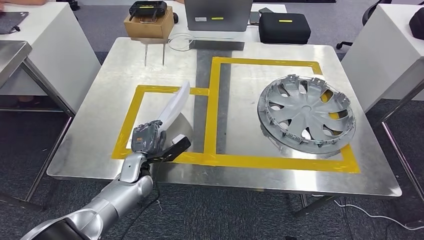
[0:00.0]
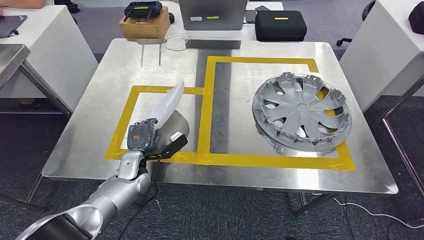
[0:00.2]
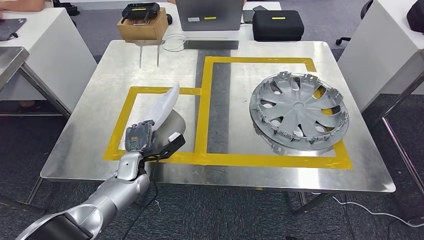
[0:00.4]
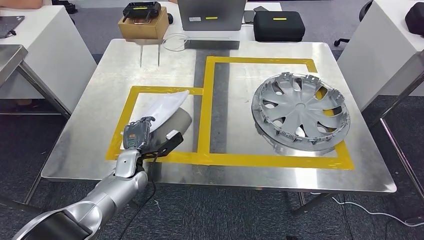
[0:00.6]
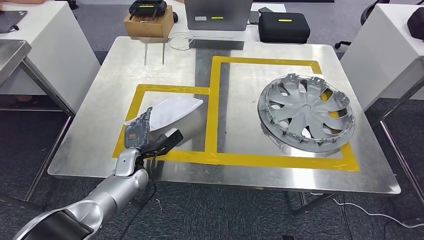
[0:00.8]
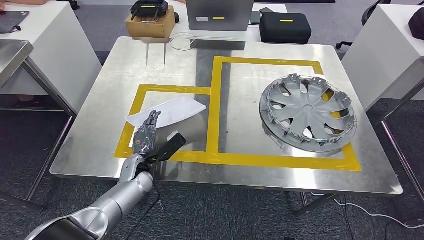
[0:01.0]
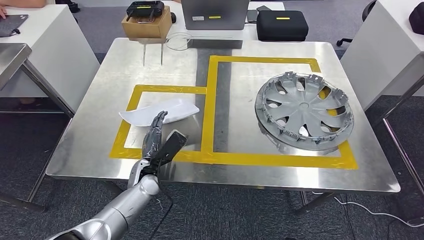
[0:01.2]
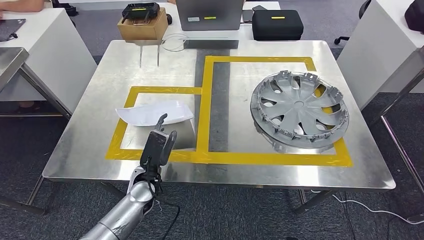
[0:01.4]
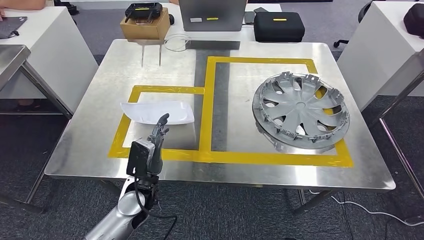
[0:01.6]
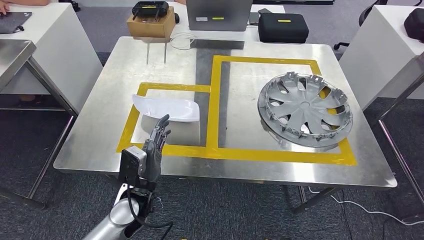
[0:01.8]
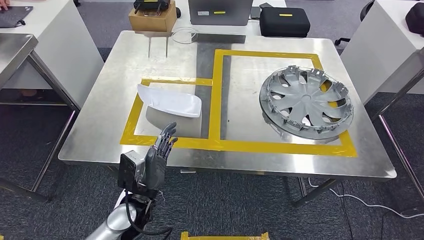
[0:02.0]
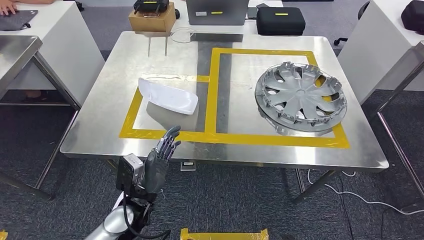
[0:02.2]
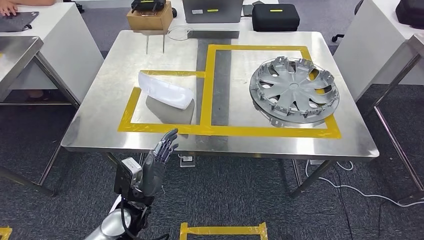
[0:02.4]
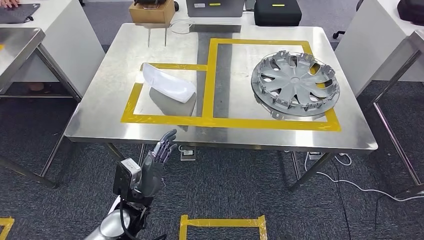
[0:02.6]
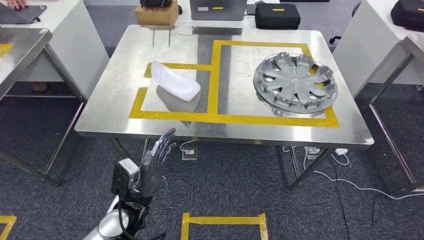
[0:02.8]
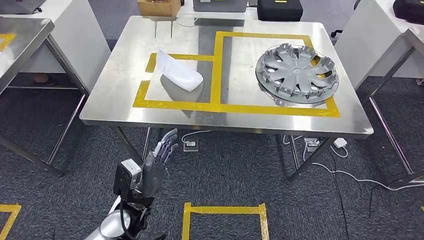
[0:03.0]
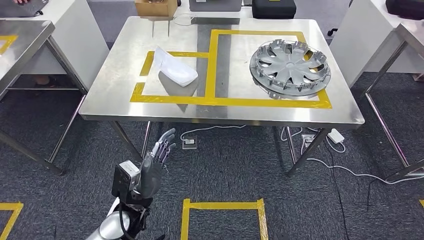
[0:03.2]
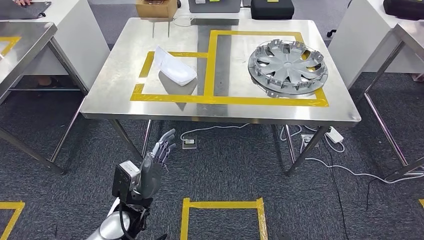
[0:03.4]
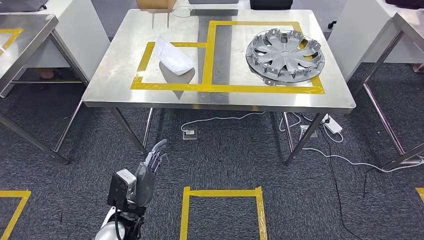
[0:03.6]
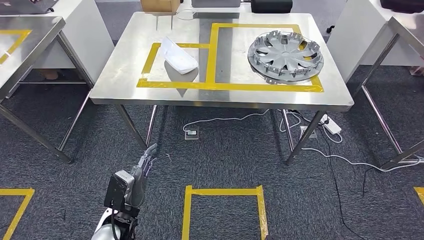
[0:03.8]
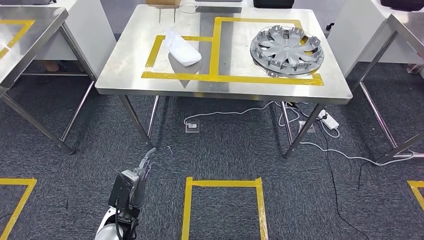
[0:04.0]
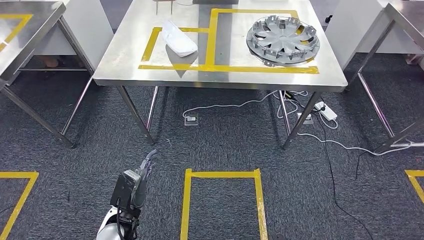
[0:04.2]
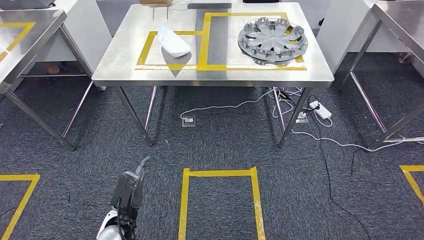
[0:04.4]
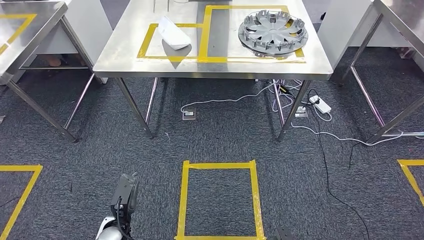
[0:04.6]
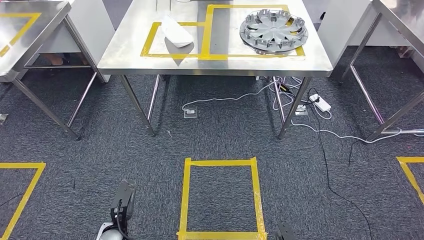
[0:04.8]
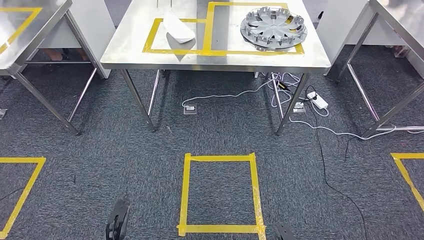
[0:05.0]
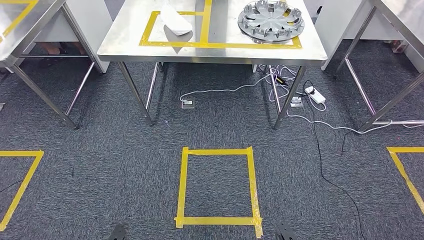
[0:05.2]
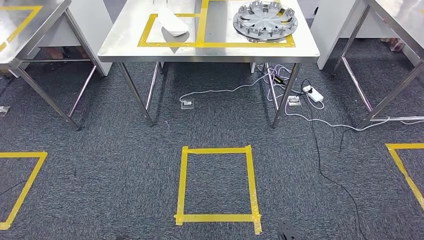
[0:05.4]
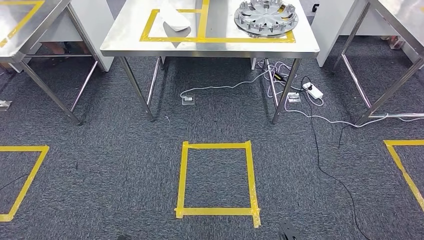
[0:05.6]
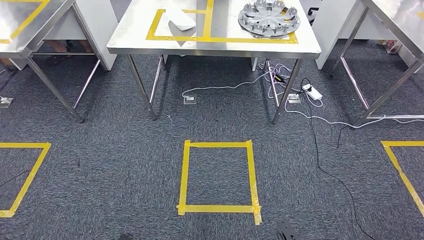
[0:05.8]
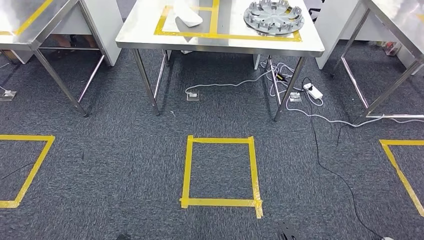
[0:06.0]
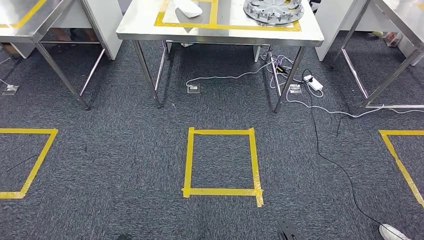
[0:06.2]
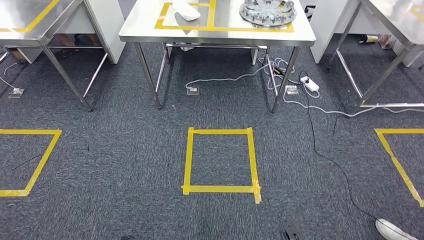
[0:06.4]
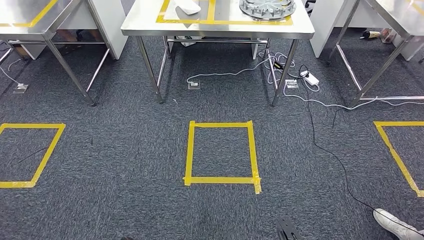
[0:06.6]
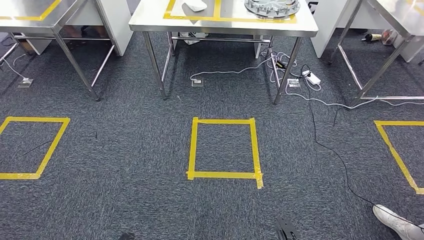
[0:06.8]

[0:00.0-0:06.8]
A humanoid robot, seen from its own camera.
Step, 0:00.0 to 0:02.8: Insert the small component into the corresponding slot on the workbench.
Step, 0:03.0 to 0:06.8: Return to the initial position at the workbench.

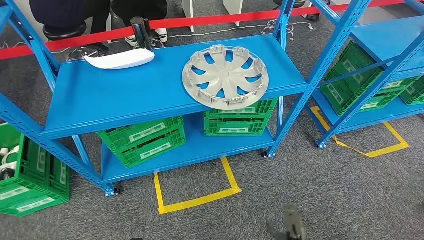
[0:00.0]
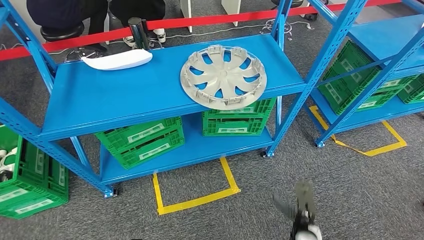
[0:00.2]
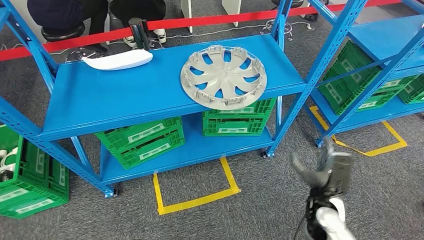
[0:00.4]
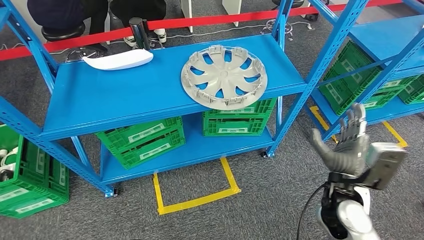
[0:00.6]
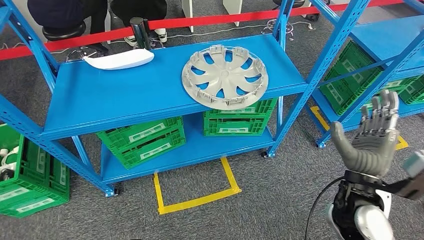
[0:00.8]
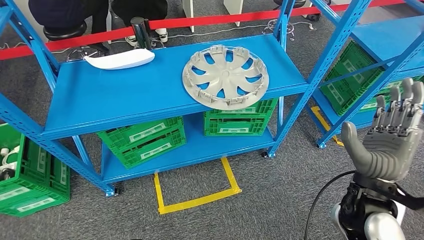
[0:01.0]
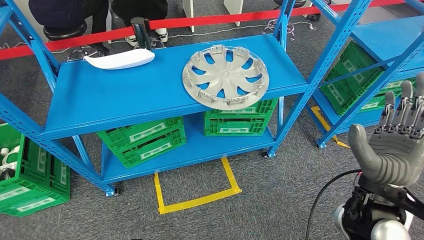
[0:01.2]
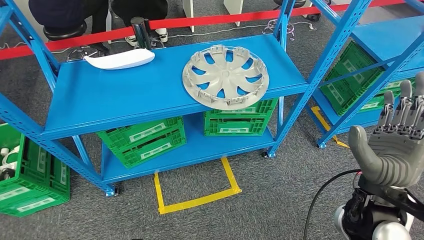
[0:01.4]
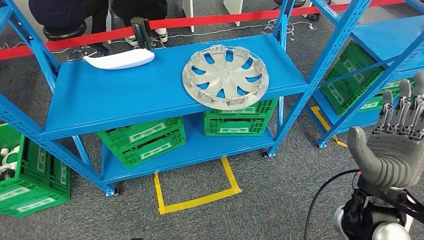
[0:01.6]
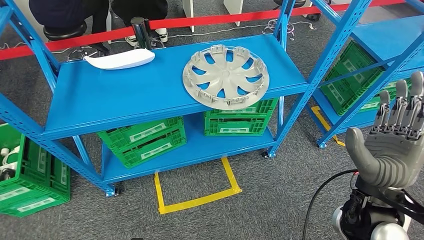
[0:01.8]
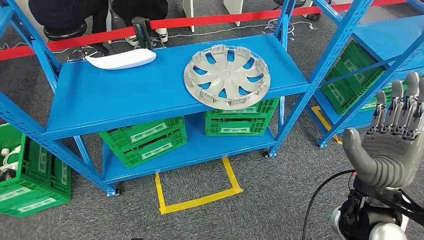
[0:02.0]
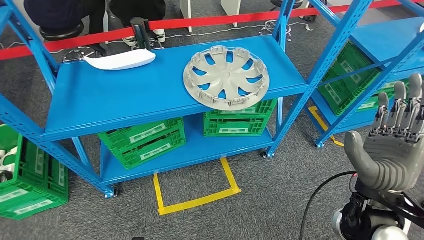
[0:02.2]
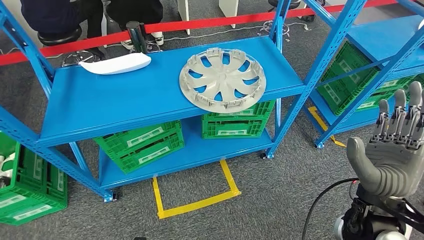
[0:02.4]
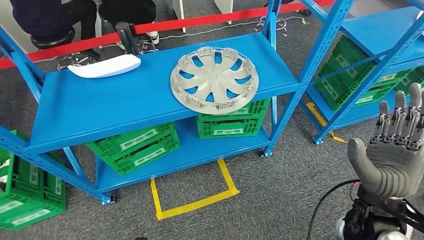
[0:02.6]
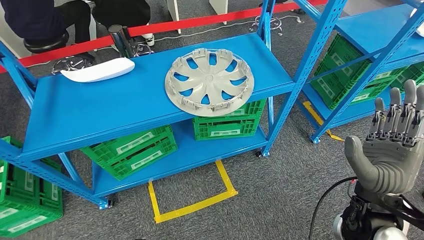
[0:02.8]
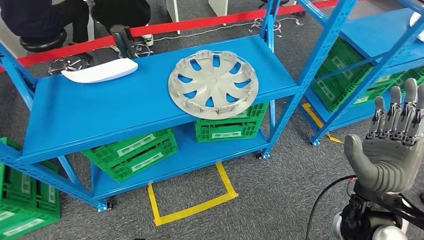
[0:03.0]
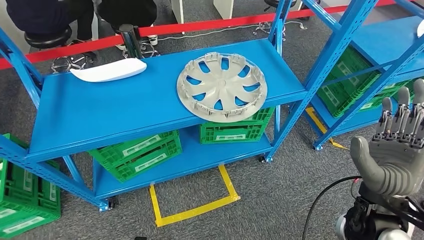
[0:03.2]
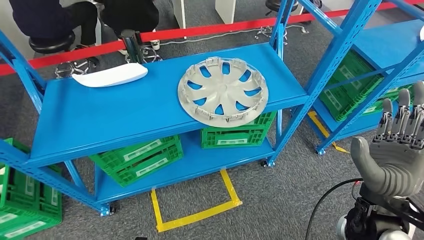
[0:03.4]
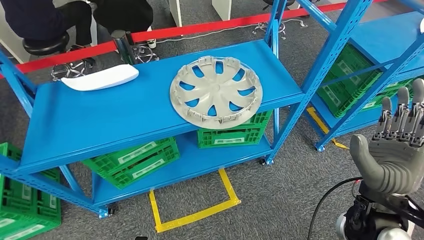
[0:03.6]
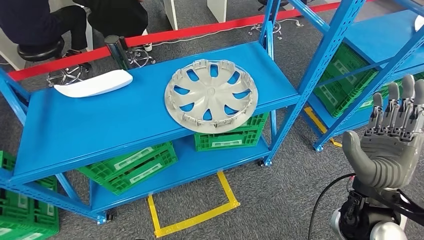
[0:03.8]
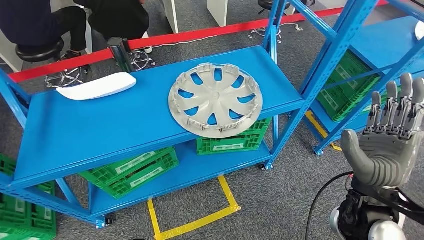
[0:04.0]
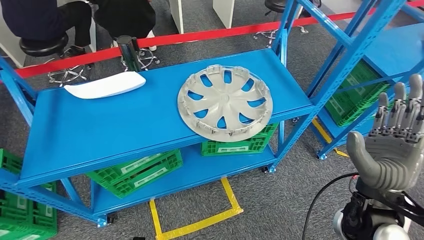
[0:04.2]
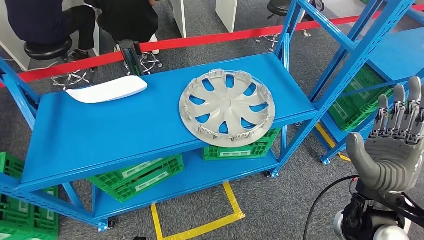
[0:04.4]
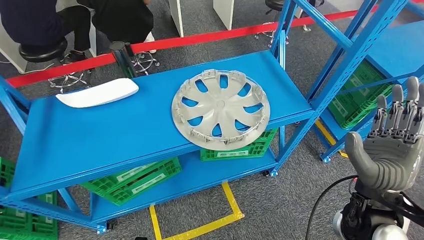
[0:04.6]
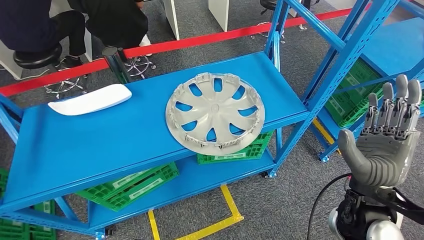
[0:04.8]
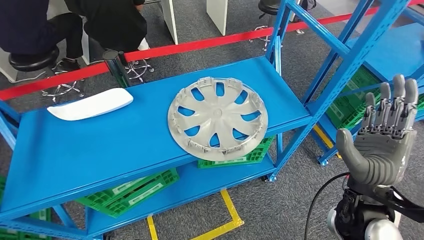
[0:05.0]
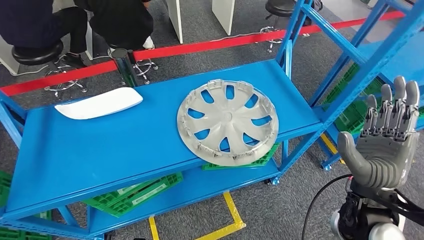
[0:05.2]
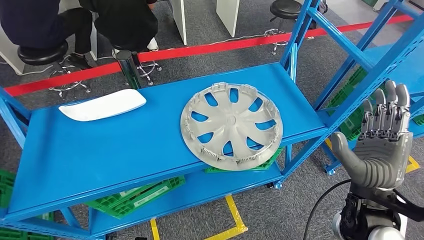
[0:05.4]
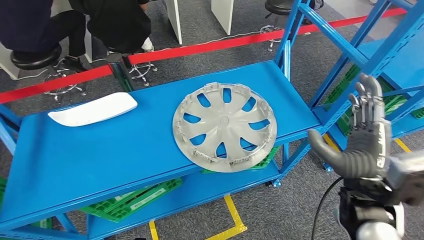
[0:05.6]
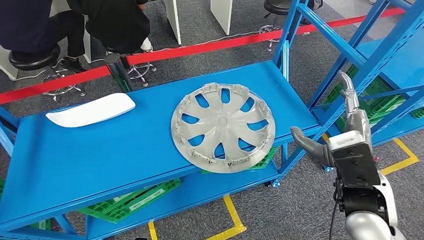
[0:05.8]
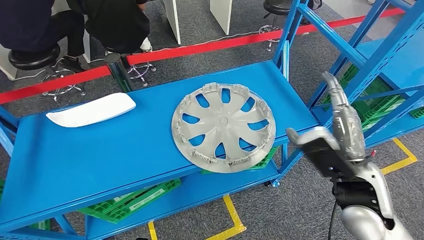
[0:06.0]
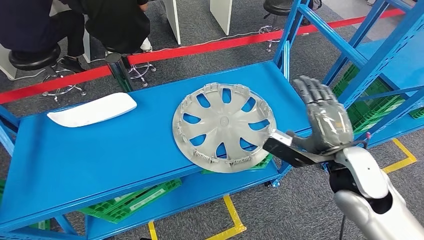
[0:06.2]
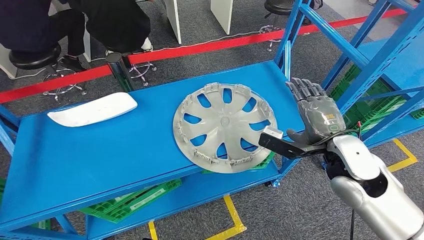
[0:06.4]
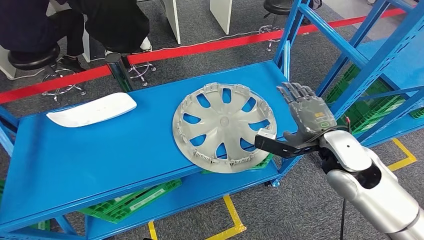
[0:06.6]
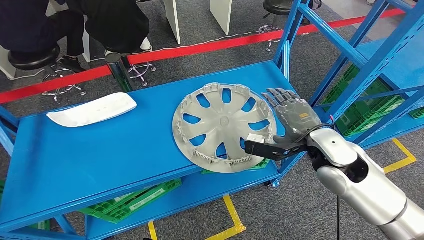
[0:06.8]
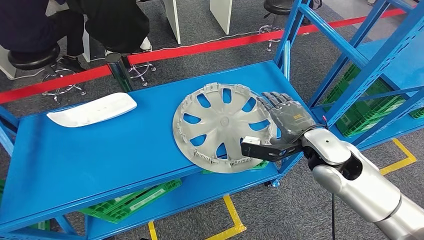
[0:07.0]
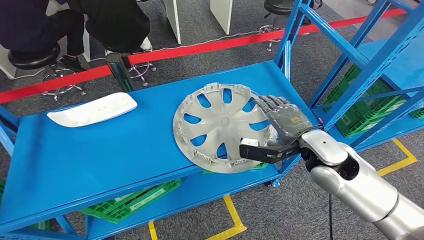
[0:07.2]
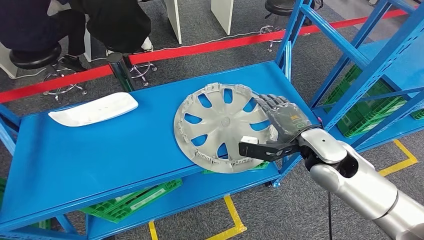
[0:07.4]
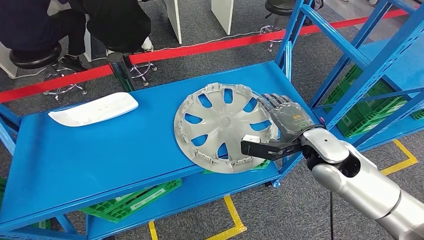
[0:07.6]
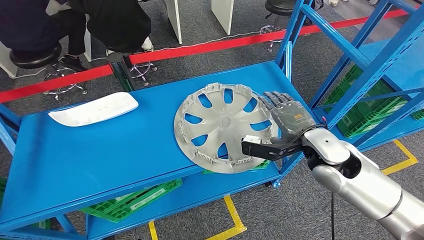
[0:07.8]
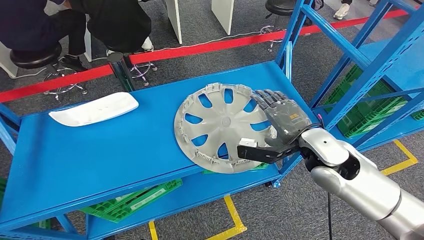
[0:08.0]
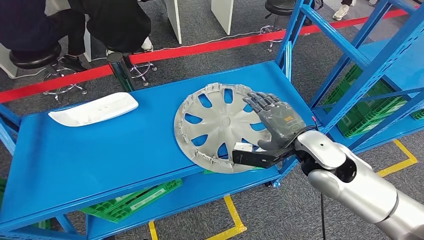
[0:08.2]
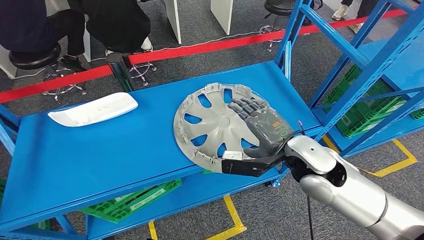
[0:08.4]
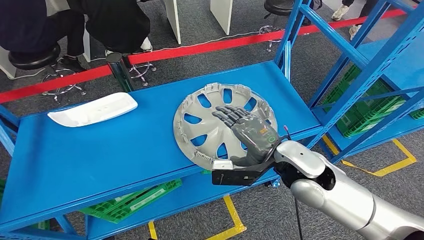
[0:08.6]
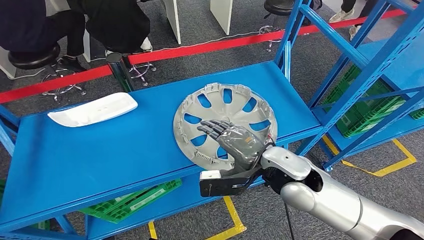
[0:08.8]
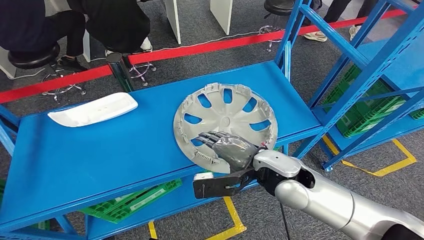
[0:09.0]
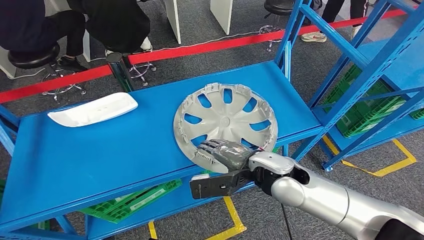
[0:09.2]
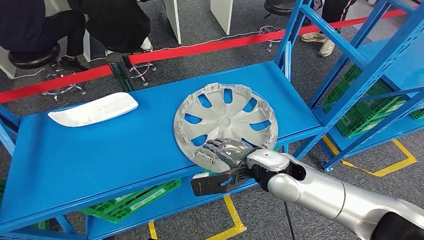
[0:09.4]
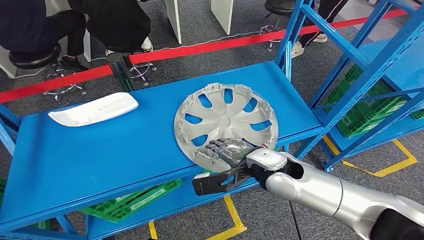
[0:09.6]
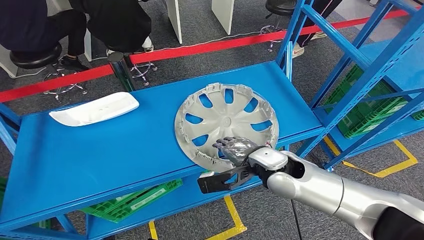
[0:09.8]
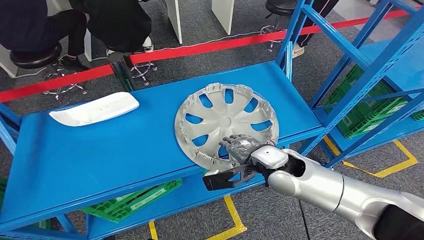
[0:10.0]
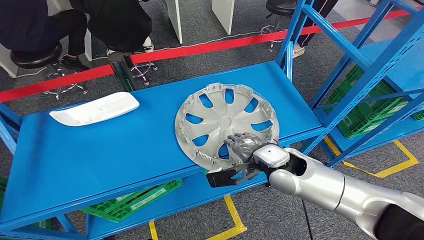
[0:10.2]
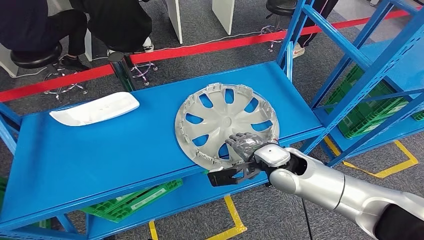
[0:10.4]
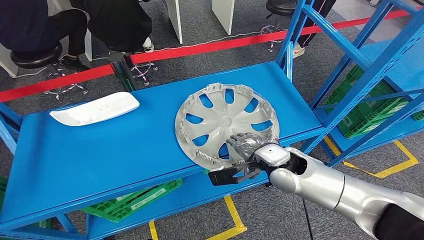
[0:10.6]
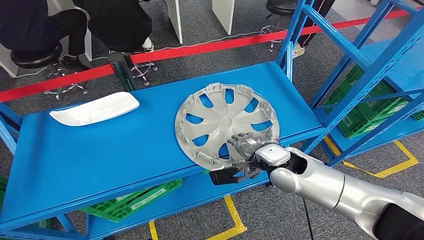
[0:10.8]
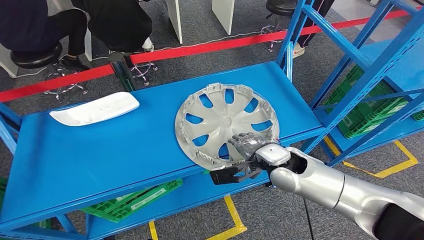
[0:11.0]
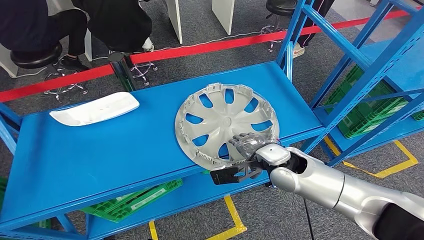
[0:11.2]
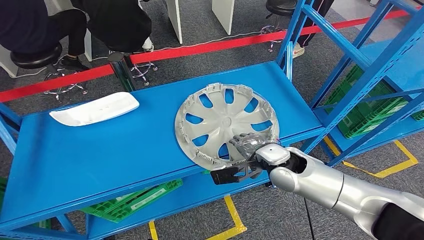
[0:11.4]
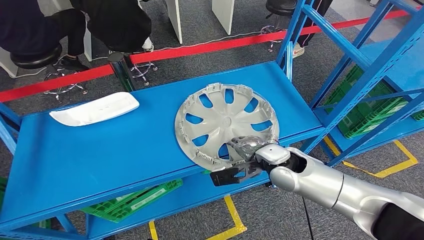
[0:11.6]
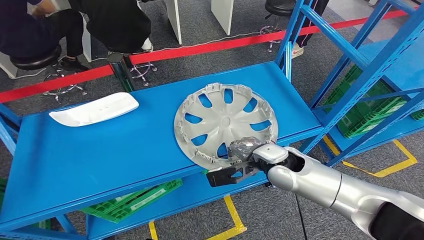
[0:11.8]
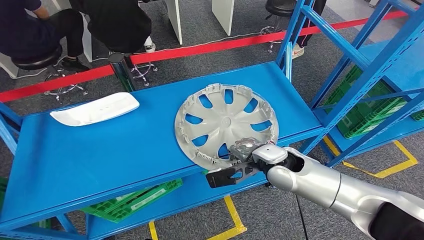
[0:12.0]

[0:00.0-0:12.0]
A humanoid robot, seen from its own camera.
0:06.0 to 0:07.6: The right hand moves forward, some 10 cm.
0:07.6 to 0:09.0: The right hand shifts roughly 10 cm to the left.
0:09.0 to 0:10.4: The right hand shifts by about 5 cm.
0:10.4 to 0:12.0: The hands make only small movements.
